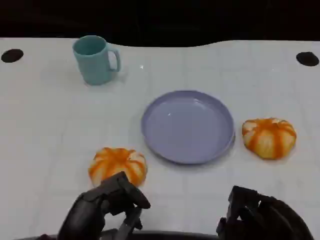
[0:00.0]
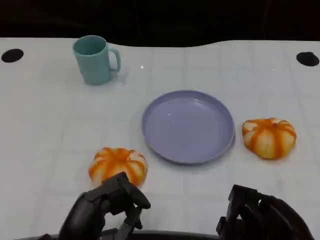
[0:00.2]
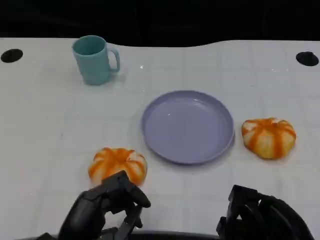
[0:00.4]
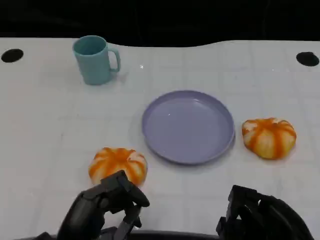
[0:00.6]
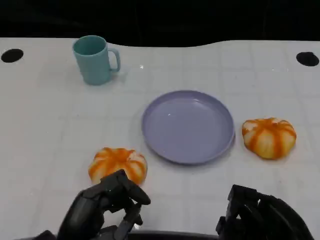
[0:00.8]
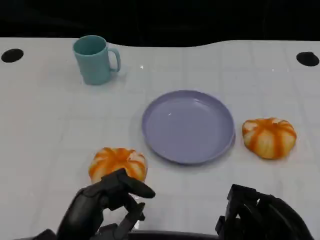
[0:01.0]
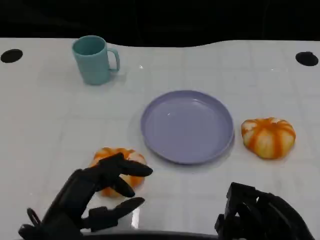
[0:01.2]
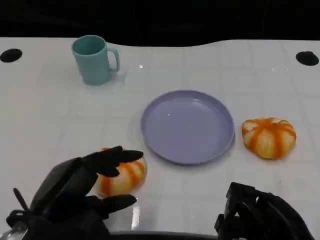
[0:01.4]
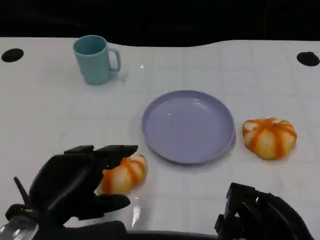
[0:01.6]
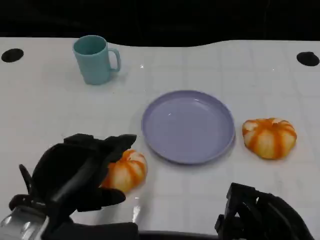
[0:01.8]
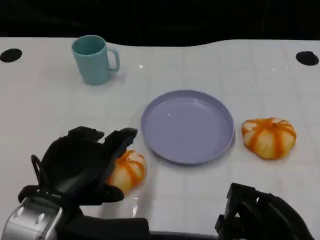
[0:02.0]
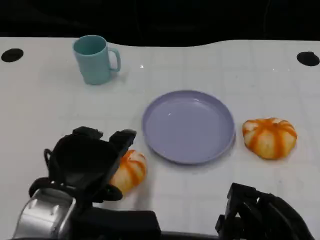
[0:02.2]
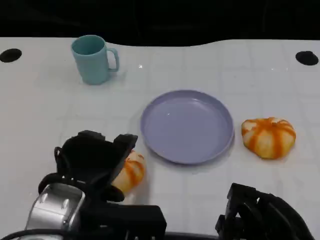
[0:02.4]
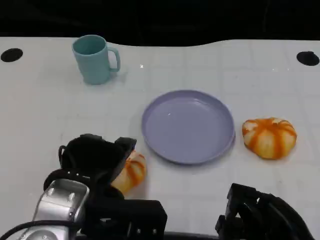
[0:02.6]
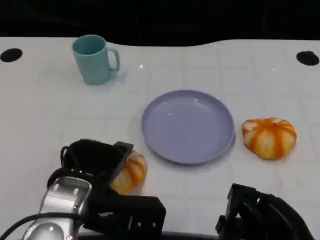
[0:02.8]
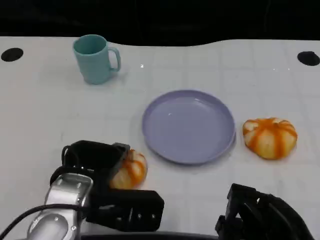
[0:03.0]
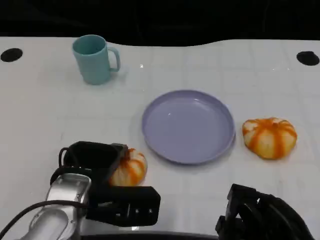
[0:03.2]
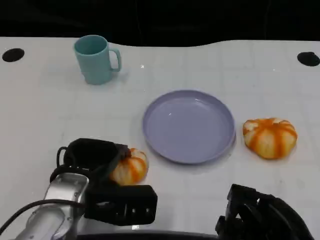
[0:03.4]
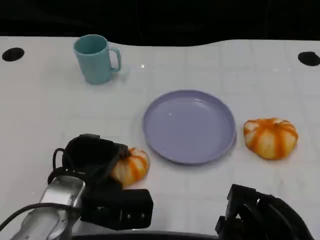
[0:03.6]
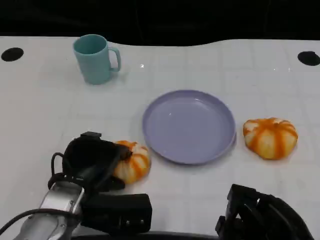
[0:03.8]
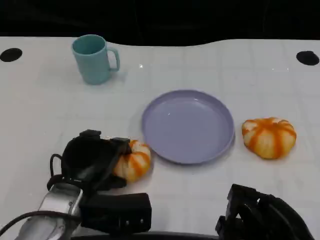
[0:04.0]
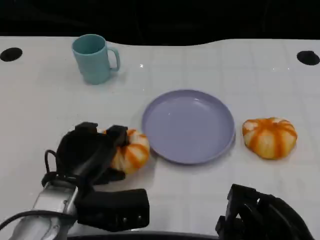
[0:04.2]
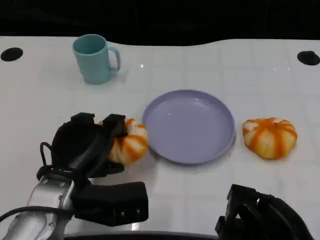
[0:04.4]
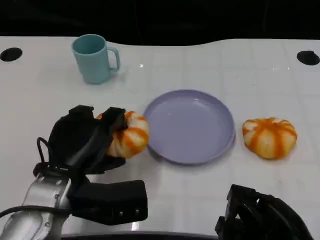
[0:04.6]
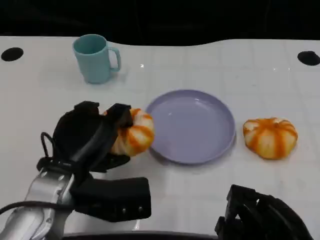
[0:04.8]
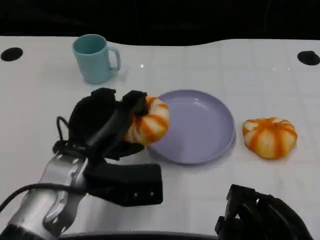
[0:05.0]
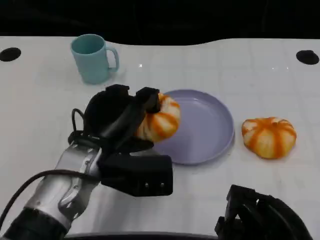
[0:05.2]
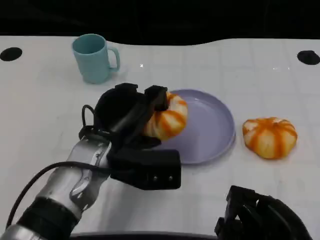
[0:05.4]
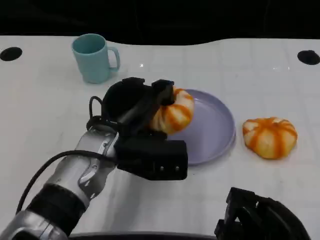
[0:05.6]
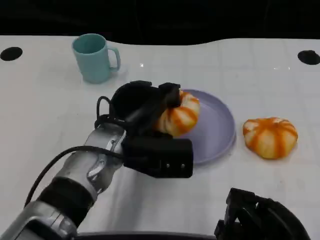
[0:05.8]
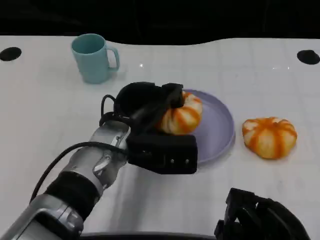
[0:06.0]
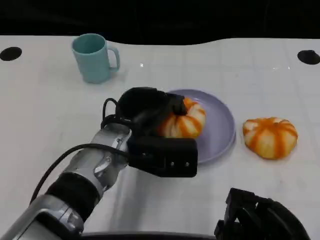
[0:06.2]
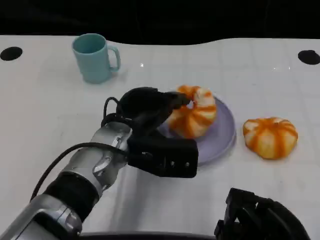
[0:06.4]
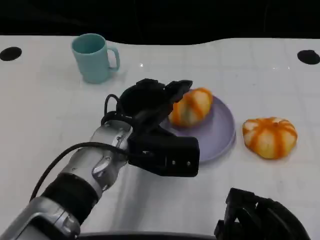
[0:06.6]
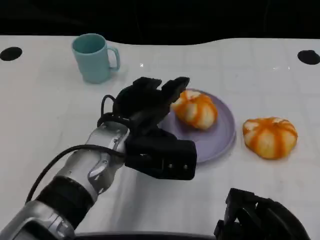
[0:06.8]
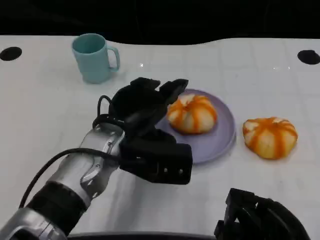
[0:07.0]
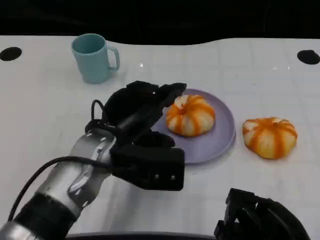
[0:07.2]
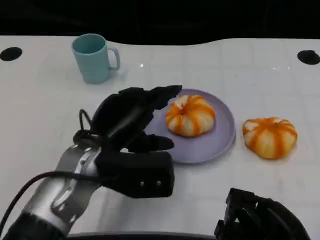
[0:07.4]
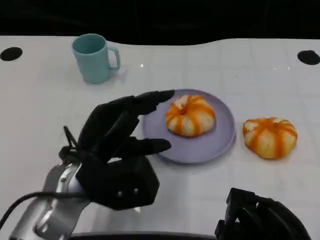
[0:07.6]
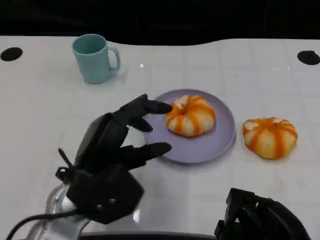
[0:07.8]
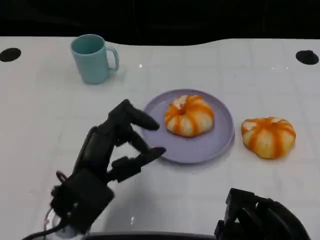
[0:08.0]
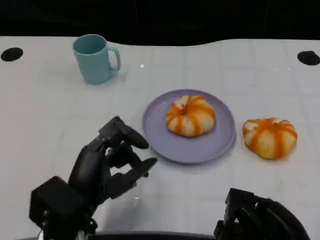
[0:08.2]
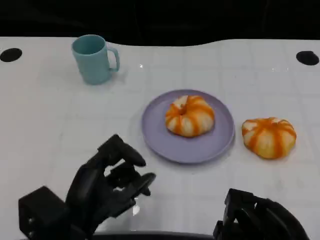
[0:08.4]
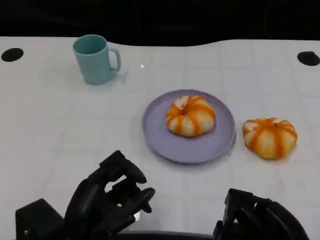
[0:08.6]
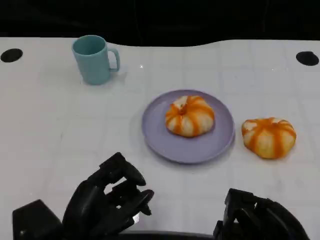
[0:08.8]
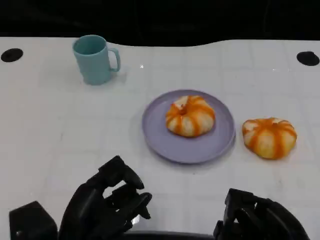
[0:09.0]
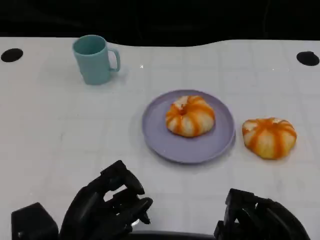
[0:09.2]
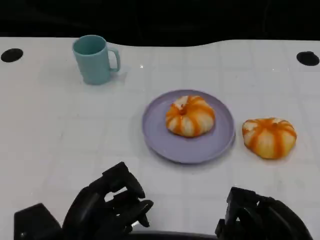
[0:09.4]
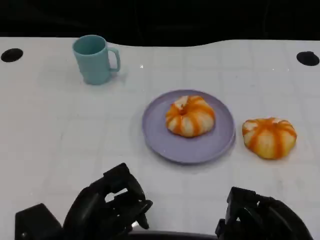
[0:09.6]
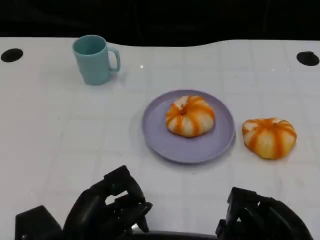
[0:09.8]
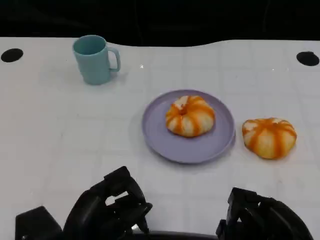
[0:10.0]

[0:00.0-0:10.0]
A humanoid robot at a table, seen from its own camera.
Task of the whole recording: Grasp the bread from the table and place it into the plate.
0:00.0 to 0:01.4: The left hand goes some 5 cm upward.
0:01.4 to 0:02.8: The left hand is displaced forward by some 5 cm.
0:04.2 to 0:05.8: The left hand goes some 10 cm to the right and forward.
0:05.8 to 0:07.2: The hands stay close to where they were, moving slightly.
0:07.2 to 0:08.6: The left hand goes about 15 cm backward, downward and to the left.
0:08.6 to 0:10.0: The hands move only a little.

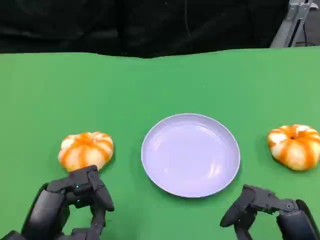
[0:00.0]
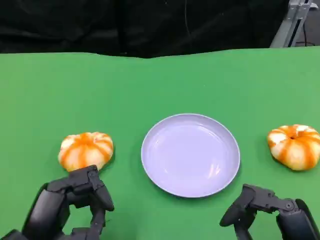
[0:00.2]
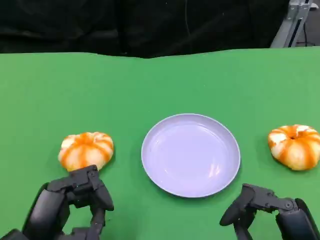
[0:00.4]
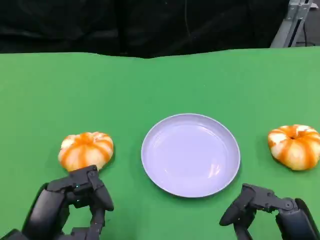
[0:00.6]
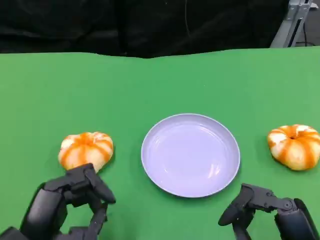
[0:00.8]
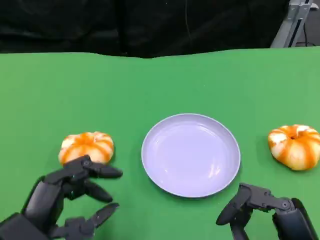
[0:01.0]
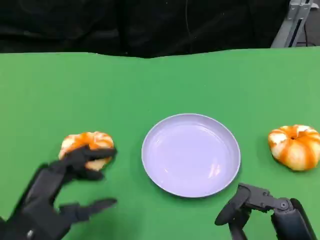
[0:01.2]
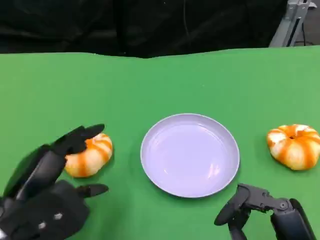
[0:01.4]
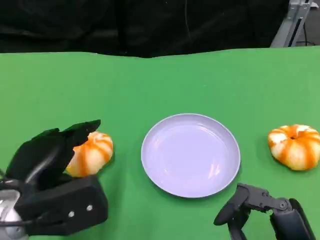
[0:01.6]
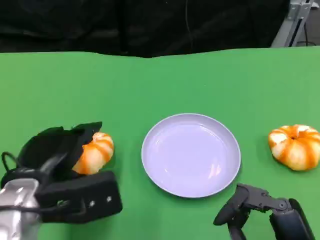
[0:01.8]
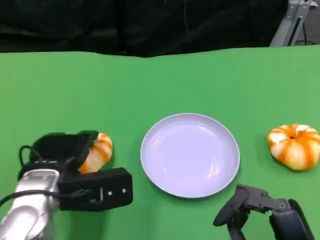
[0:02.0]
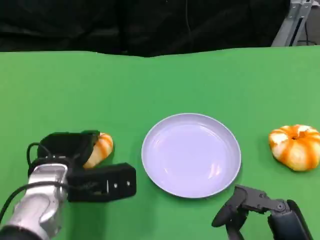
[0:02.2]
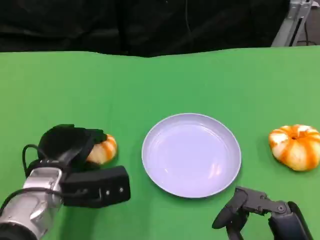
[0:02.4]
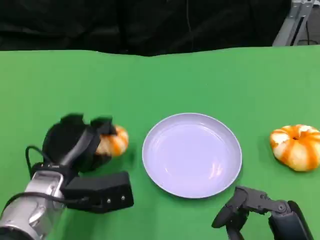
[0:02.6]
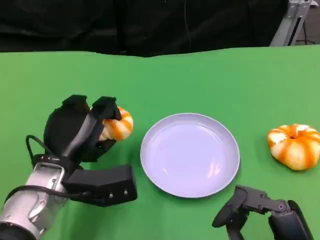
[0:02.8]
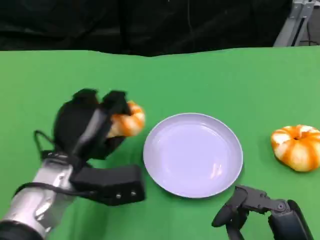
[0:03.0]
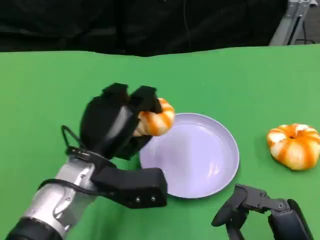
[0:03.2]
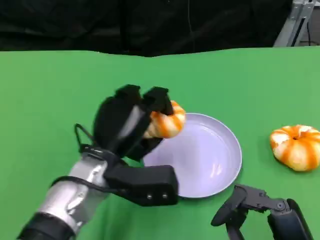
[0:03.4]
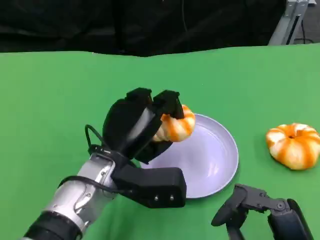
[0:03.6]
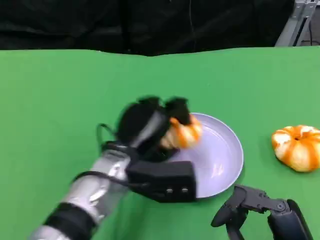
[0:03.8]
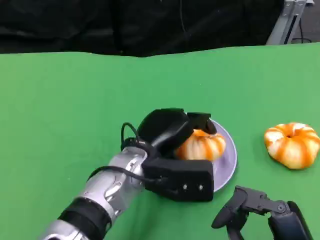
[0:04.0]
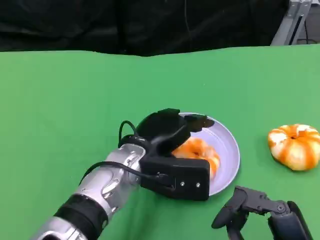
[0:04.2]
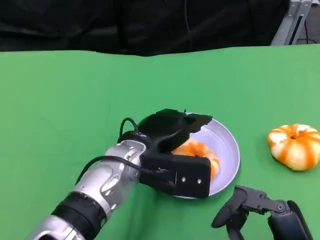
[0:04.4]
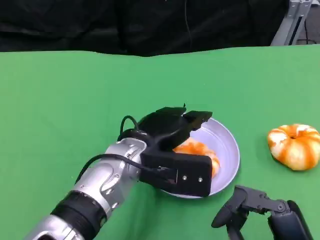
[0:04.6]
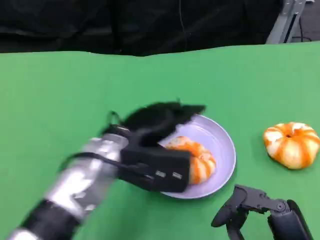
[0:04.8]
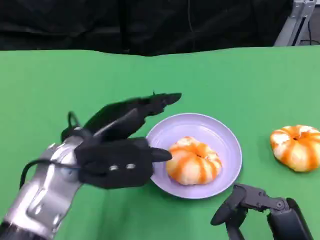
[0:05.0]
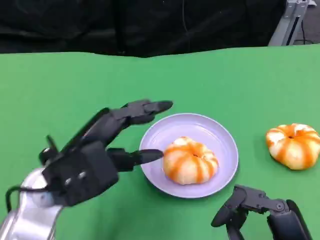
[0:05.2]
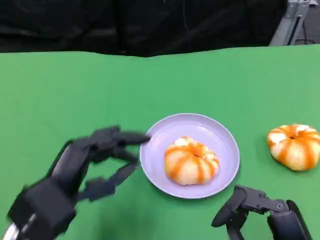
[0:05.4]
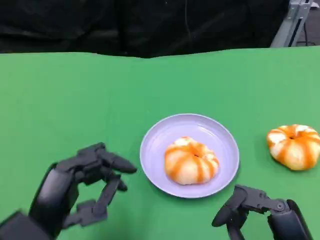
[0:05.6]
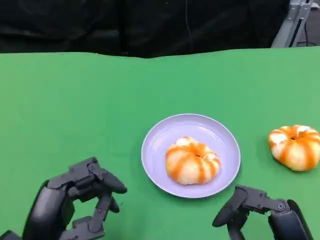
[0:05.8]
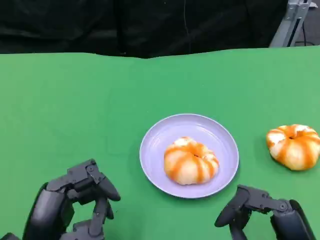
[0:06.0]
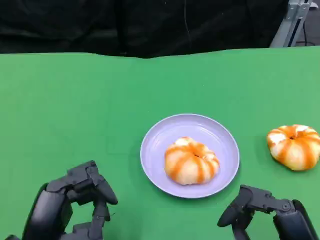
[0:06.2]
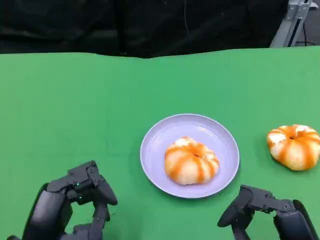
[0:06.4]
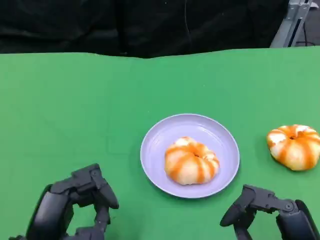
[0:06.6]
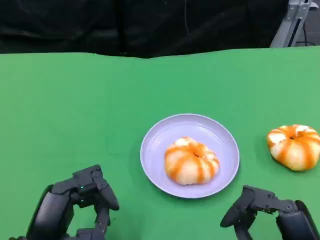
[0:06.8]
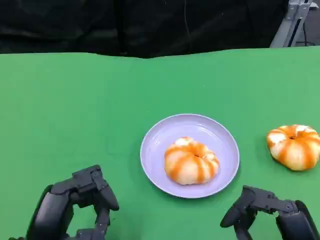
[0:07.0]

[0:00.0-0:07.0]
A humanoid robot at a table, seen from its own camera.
Task of the whole recording: Grasp the bread from the table and place it into the plate.
0:00.0 to 0:01.4: The left hand ends up approximately 5 cm from where it was.
0:01.4 to 0:02.8: The left hand goes about 10 cm forward.
0:02.8 to 0:04.2: The left hand goes some 10 cm to the right.
0:04.2 to 0:05.6: The left hand heads to the left and backward, covering roughly 20 cm.
0:05.6 to 0:07.0: The hands move only a little.

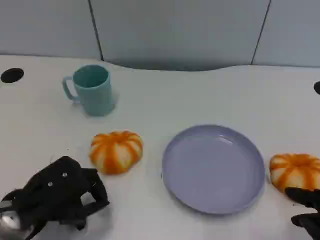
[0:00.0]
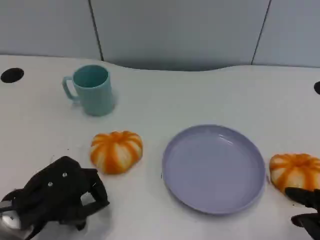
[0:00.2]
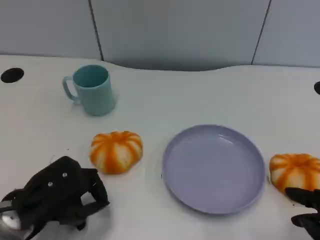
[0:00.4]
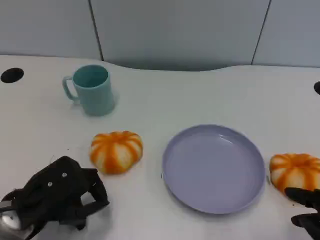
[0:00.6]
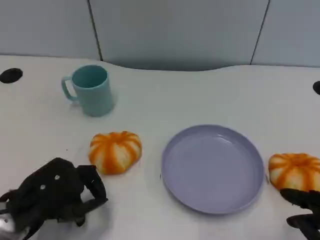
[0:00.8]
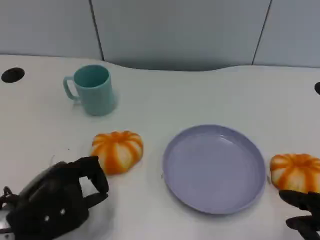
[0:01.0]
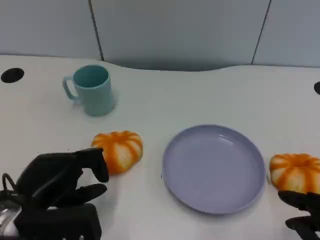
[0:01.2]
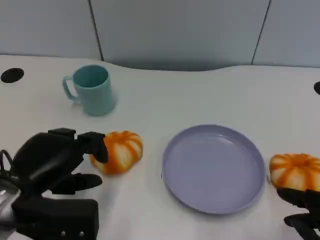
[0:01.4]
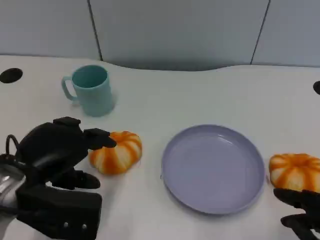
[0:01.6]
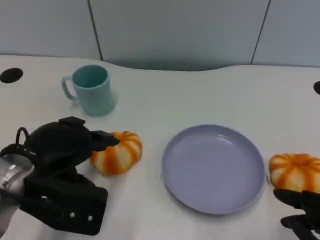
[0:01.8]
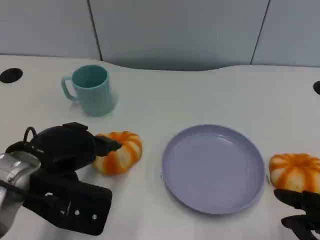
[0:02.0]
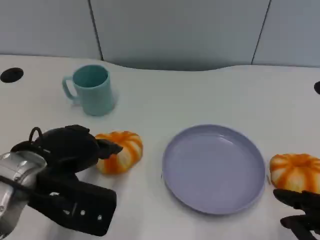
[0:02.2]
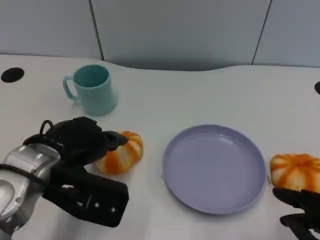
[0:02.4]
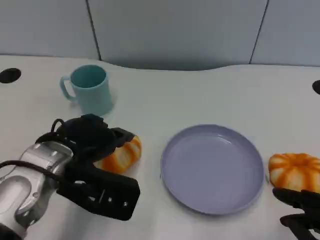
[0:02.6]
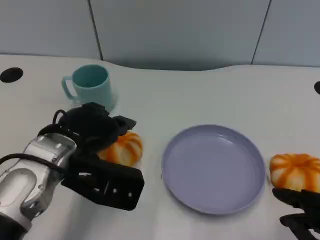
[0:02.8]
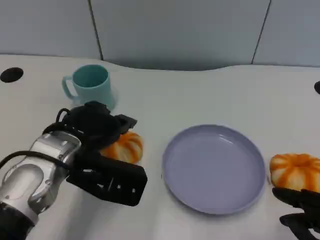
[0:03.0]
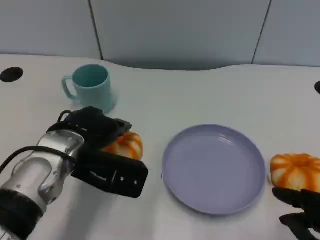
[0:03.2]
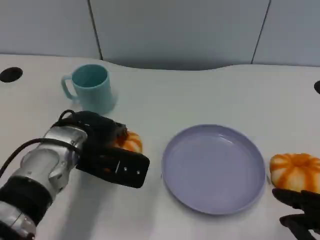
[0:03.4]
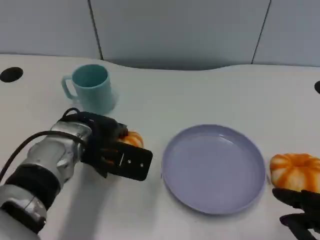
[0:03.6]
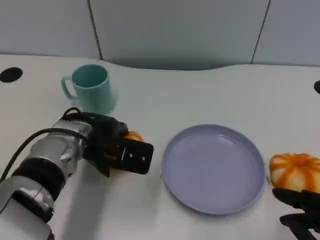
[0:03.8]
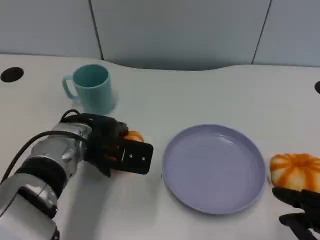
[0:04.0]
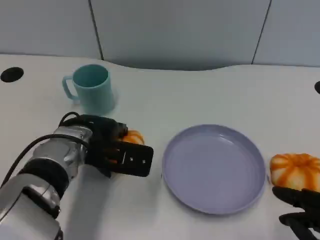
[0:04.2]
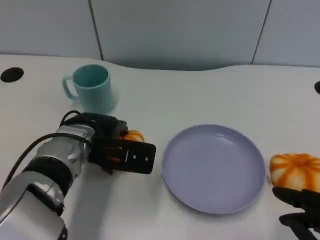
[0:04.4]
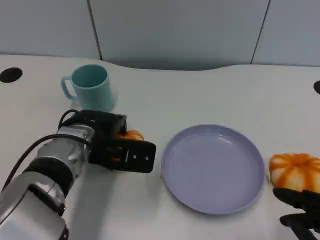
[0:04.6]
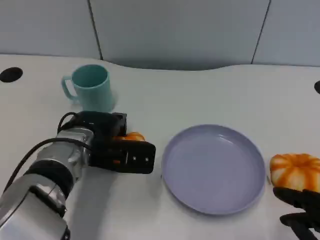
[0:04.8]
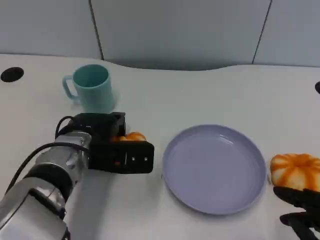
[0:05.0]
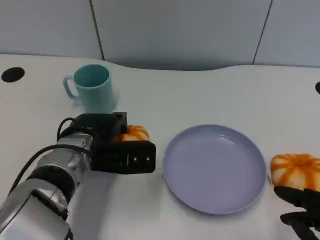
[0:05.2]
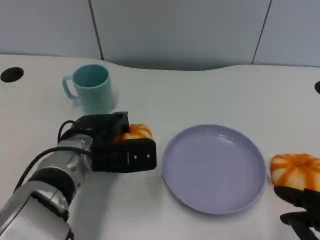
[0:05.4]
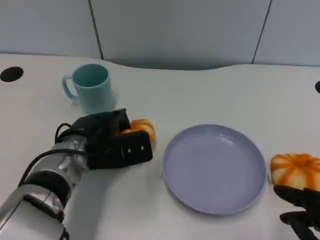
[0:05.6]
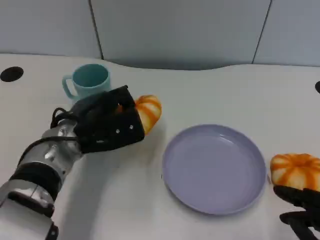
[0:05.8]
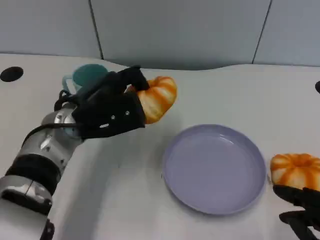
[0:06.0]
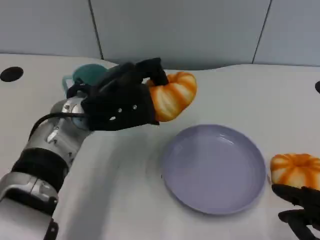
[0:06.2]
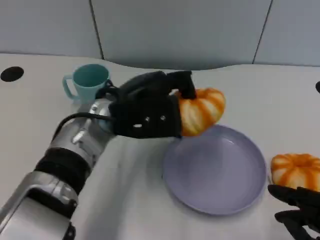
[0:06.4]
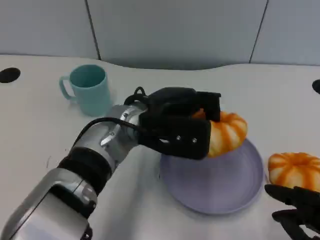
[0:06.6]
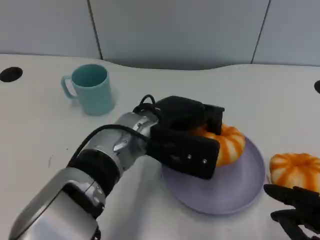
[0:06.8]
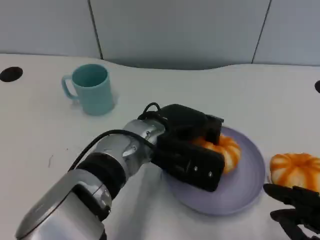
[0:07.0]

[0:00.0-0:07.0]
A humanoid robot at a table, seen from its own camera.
Task of the whole recording: Grasp the bread from the table and place it into the plate.
0:01.4 to 0:02.8: The left hand shifts about 10 cm to the right and forward.
0:02.8 to 0:04.2: The left hand shifts approximately 5 cm forward and downward.
0:05.6 to 0:07.0: The left hand moves to the right, approximately 10 cm.
